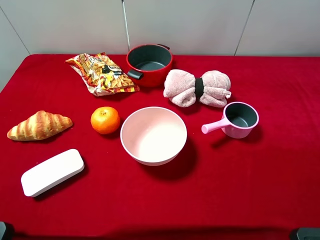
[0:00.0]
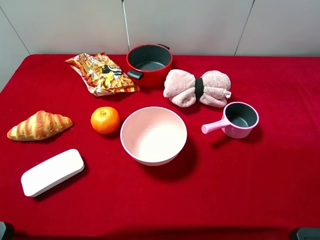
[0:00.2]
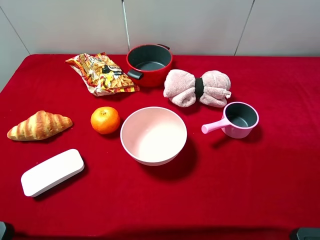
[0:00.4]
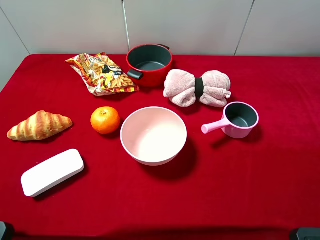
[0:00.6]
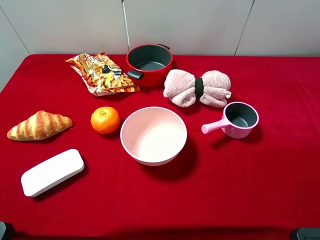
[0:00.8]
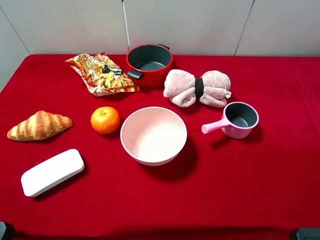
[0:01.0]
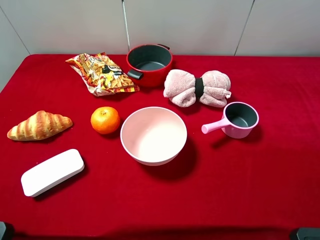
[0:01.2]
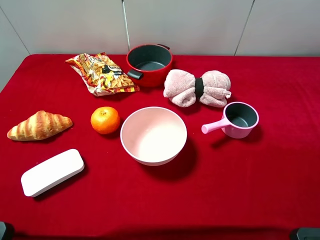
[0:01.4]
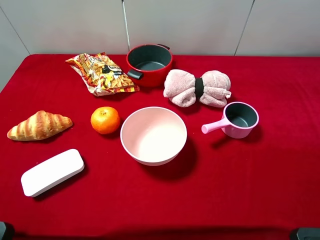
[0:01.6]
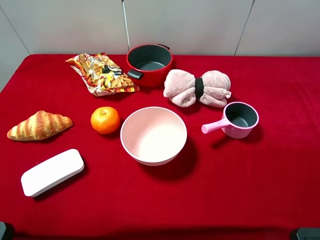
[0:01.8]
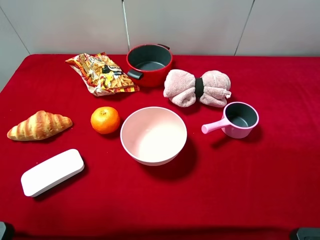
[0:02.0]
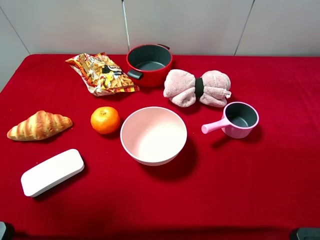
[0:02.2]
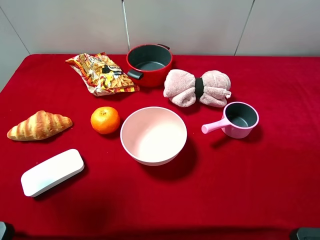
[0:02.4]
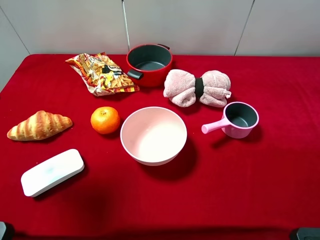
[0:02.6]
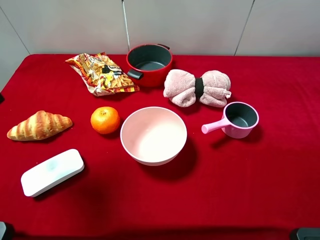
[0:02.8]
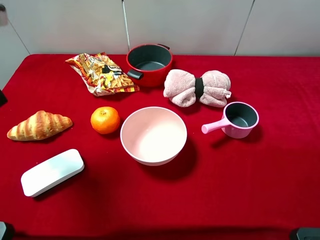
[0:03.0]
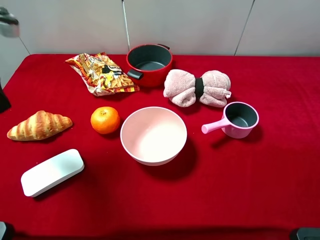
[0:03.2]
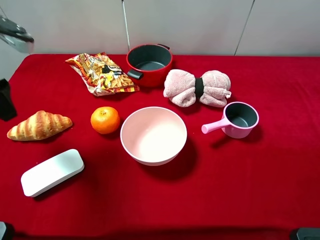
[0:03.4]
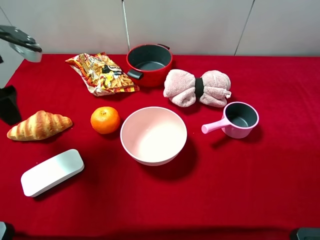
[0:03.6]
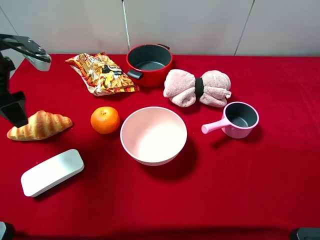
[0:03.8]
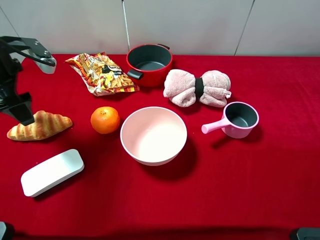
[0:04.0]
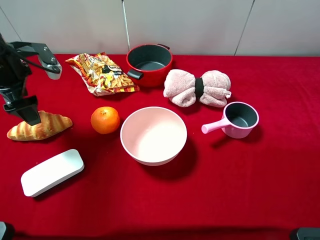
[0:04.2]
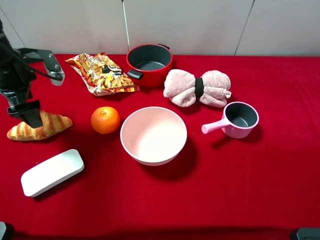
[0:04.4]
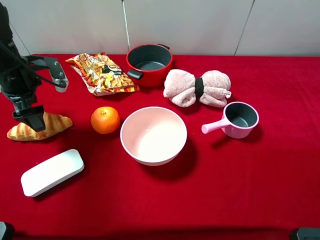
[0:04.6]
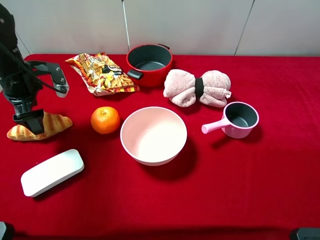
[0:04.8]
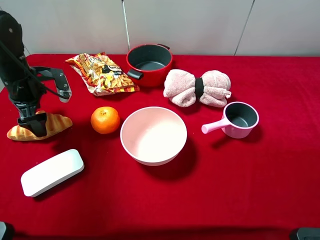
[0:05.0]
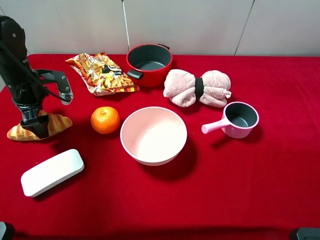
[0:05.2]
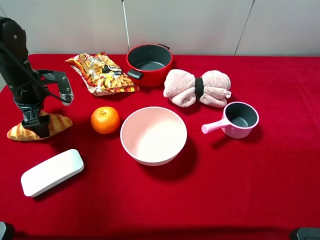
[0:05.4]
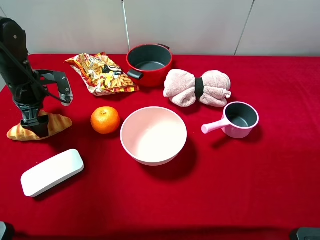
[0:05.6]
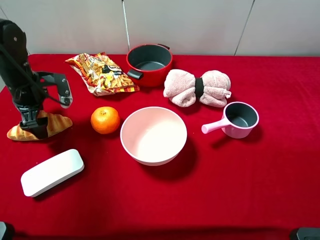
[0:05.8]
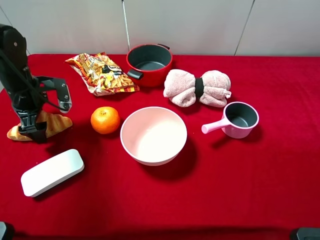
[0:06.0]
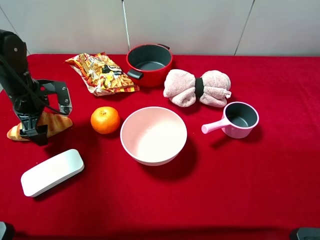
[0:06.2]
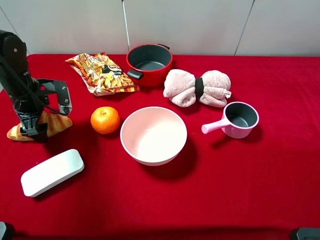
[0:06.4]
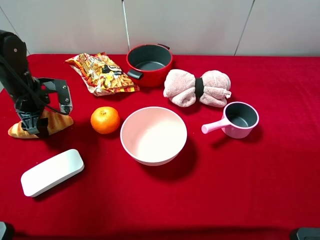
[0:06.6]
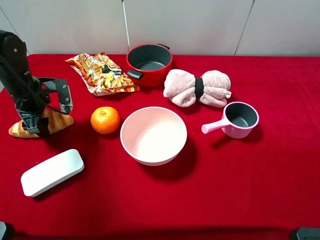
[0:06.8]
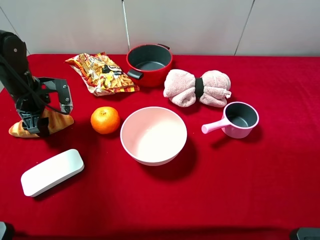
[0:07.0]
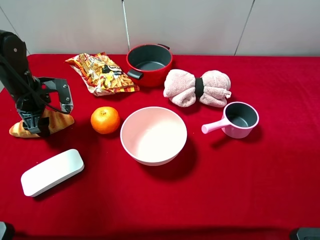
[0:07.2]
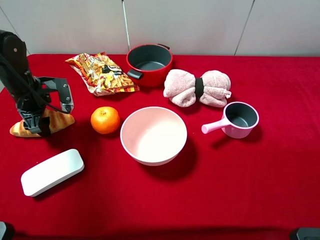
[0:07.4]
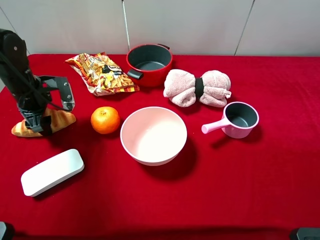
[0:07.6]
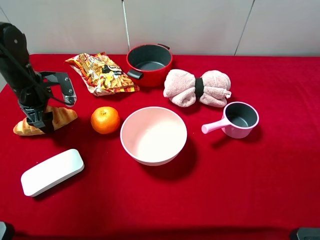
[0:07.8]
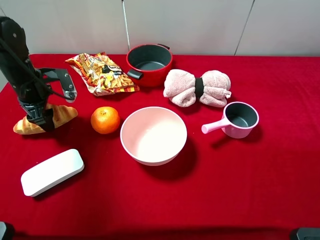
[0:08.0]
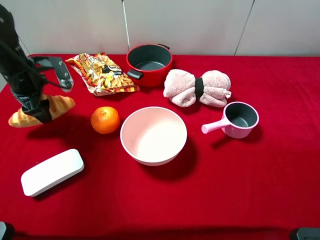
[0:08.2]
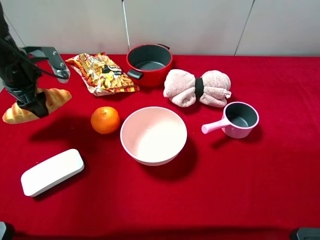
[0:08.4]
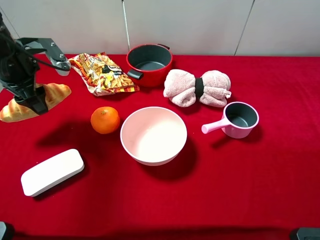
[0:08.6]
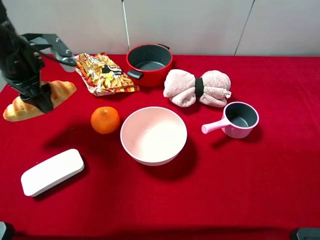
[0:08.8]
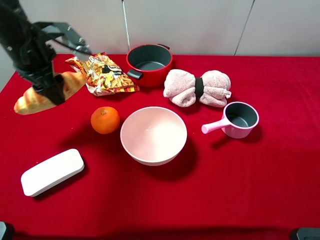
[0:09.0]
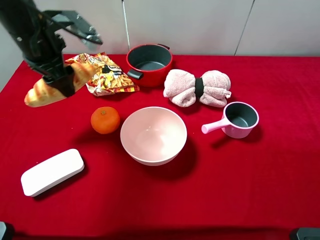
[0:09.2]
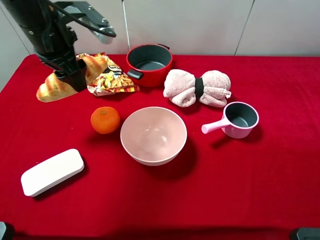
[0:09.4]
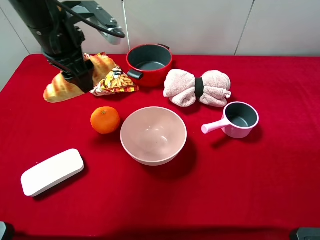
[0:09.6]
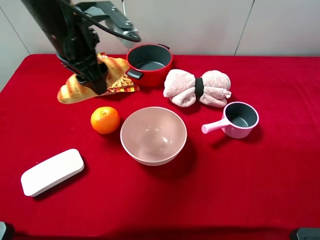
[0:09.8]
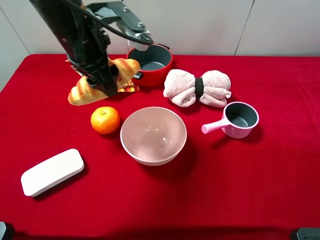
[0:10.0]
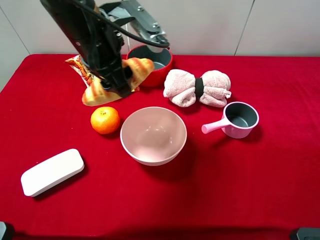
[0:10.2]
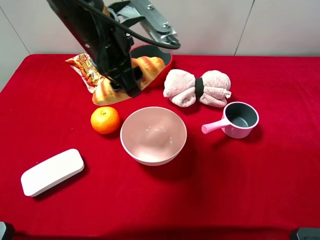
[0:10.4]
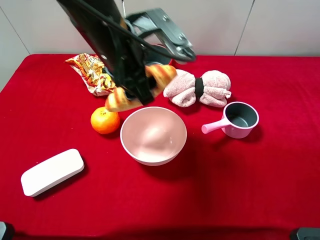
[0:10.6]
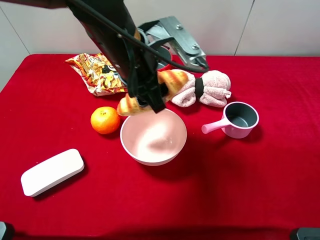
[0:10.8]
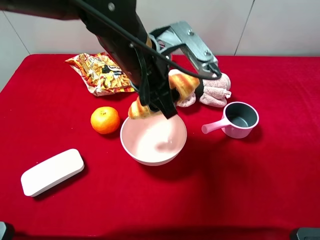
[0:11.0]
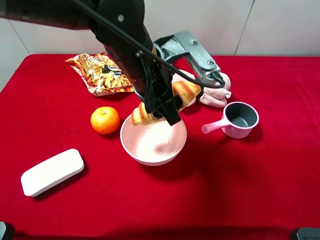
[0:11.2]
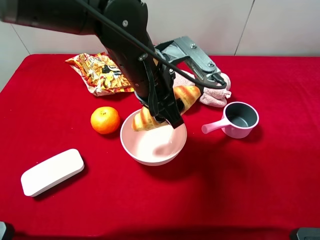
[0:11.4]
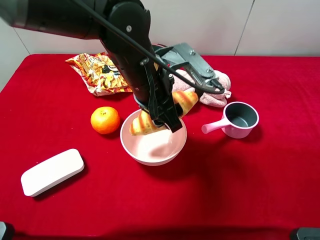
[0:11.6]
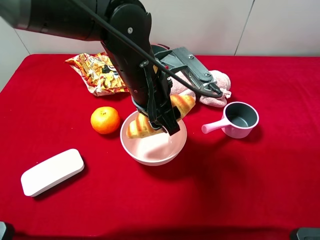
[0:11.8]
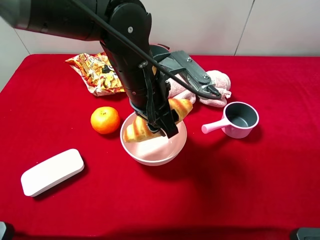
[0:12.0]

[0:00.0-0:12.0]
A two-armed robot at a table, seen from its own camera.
Task of the whole recording: pick up an item with a gripper and place it in a random container on the desktop.
1.6 to 3.0 s: The left gripper heads forward, covering approximately 20 cm.
3.0 to 4.4 s: The left gripper is displaced downward and forward by roughly 15 cm.
4.4 to 6.0 s: The left gripper shifts some 5 cm downward.
6.0 to 7.6 s: The left gripper closes its fingers.
7.6 to 9.0 s: The left gripper shifts roughly 15 cm upward and to the right.
9.0 to 10.4 s: The left gripper shifts about 15 cm to the right.
10.4 to 12.0 s: The left gripper shifts some 10 cm downward and to the right.

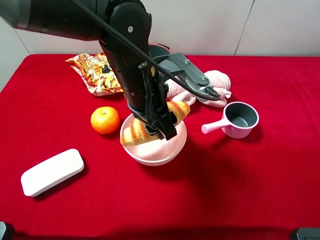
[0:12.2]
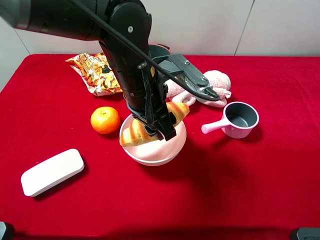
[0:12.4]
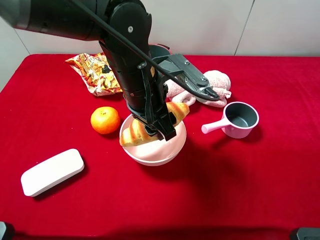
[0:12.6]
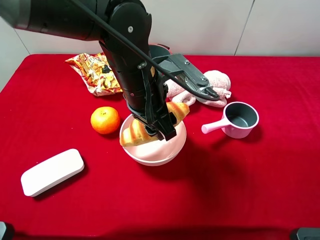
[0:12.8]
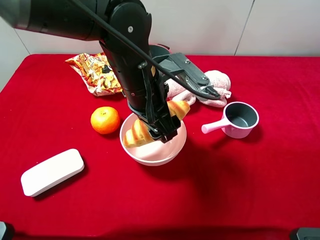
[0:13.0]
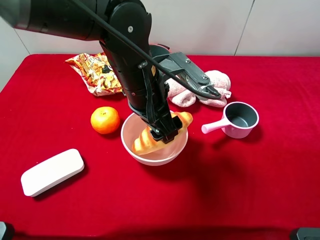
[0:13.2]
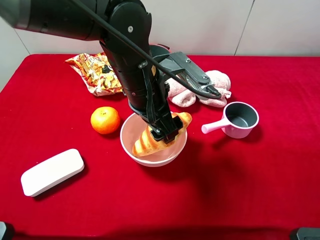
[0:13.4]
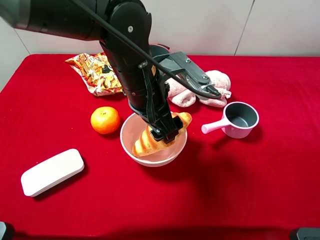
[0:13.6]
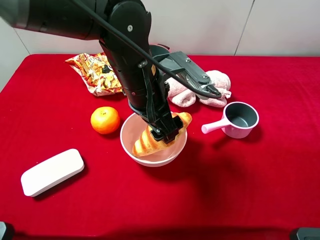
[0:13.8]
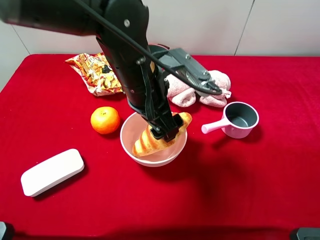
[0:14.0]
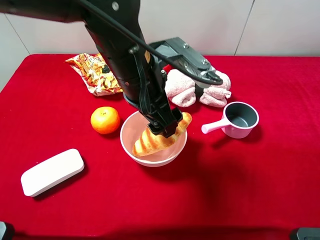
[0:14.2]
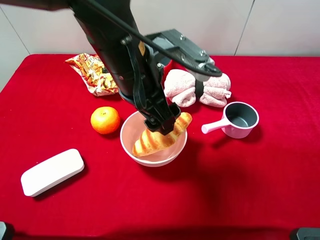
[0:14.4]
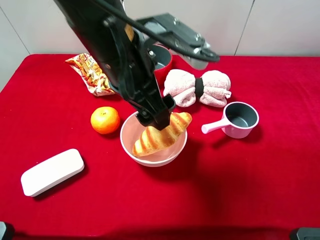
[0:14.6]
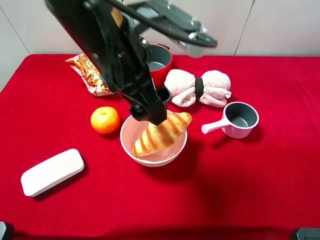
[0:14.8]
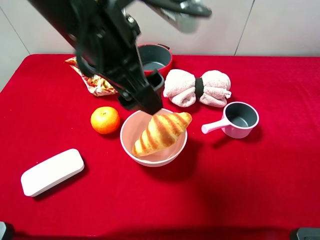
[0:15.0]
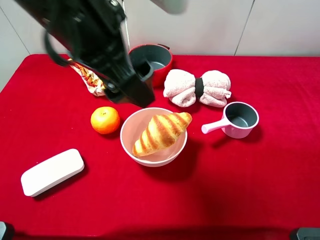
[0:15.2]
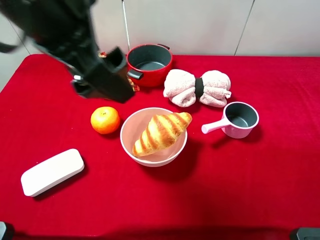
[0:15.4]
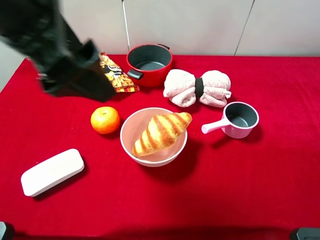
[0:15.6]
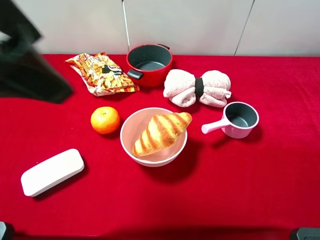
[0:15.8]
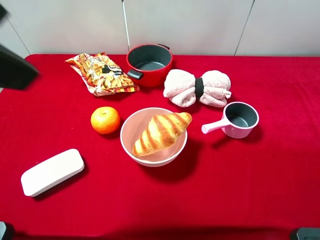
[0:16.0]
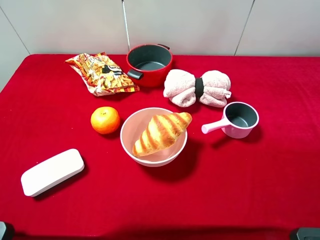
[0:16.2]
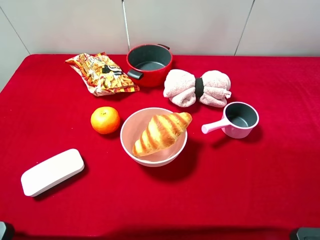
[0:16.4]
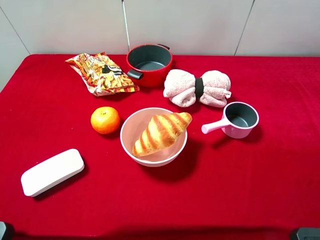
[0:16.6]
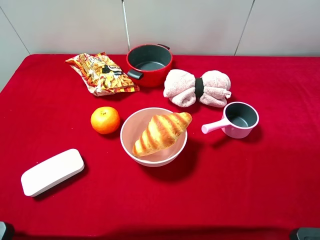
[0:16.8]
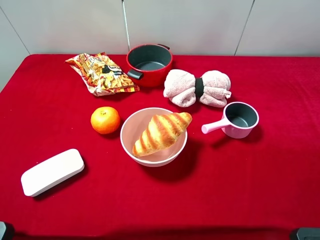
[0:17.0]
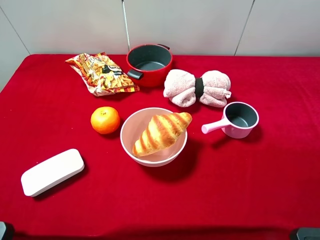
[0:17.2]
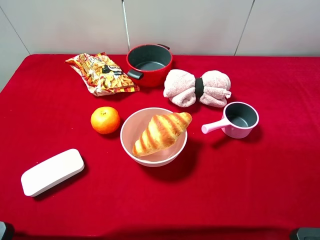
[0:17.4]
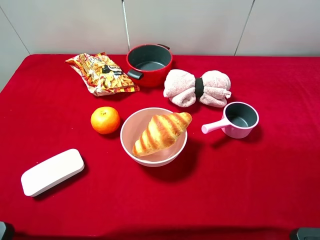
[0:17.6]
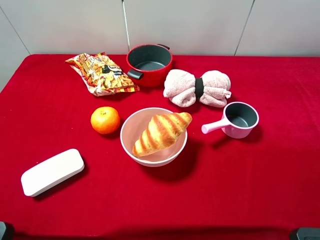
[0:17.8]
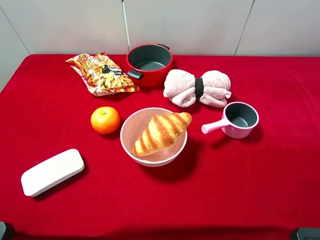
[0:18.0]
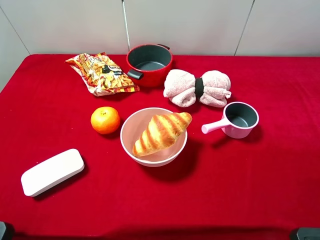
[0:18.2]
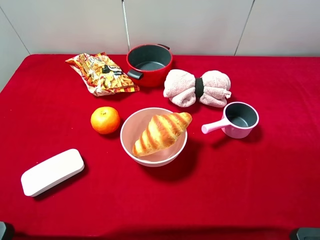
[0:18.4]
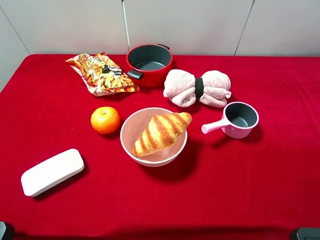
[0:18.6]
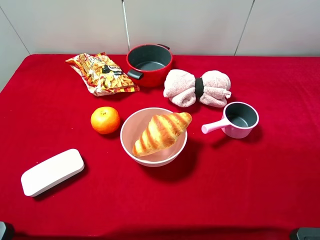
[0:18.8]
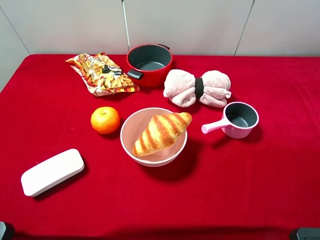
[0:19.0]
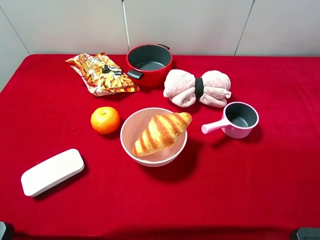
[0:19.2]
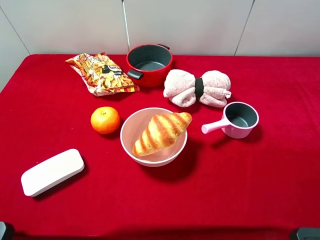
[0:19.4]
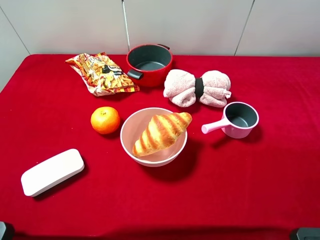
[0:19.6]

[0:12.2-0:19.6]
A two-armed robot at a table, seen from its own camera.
Task of the whole recording: pick up an item with a gripper and place it in a random container on the desktop.
12.2 to 13.6 s: The left gripper opens up.
13.6 to 15.2 s: The left gripper shifts some 15 cm upward and to the left.
15.2 to 16.6 s: The left gripper heads to the left, backward and upward, covering approximately 25 cm.

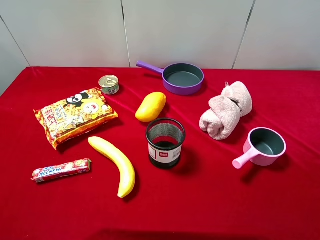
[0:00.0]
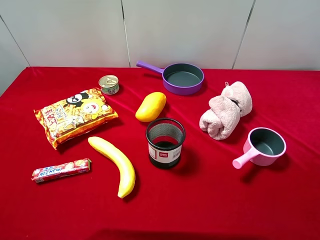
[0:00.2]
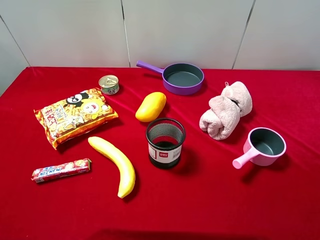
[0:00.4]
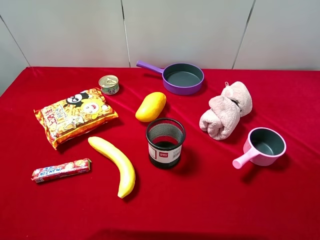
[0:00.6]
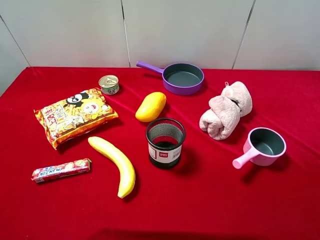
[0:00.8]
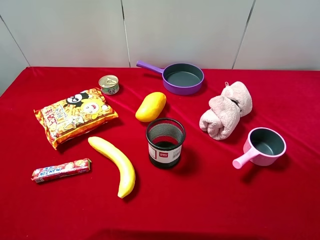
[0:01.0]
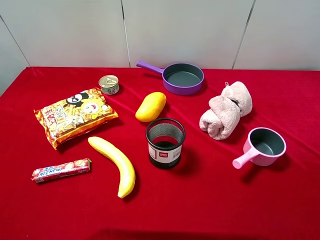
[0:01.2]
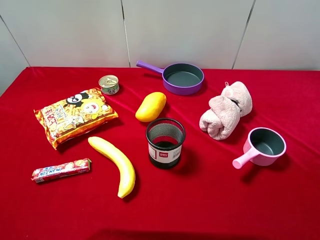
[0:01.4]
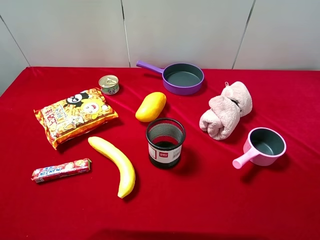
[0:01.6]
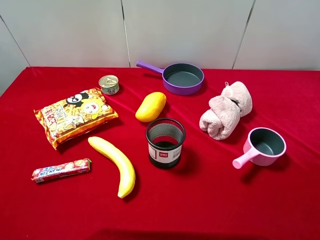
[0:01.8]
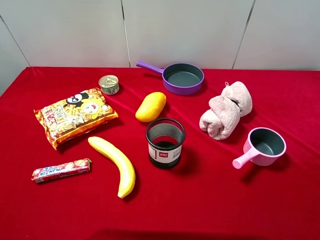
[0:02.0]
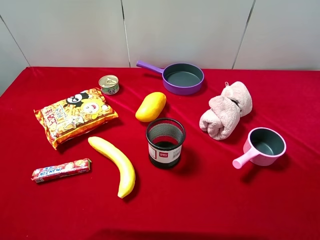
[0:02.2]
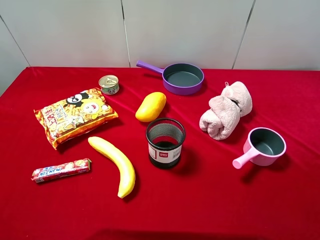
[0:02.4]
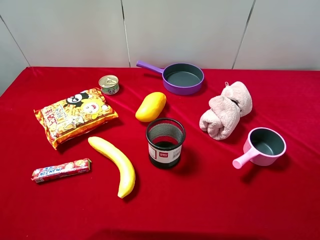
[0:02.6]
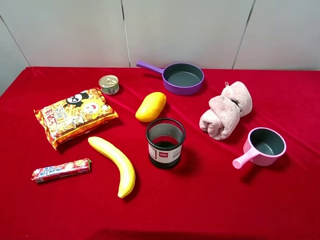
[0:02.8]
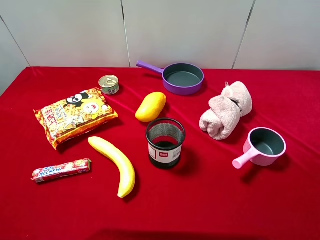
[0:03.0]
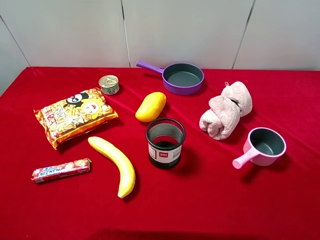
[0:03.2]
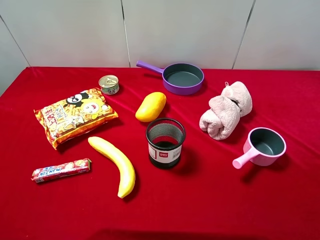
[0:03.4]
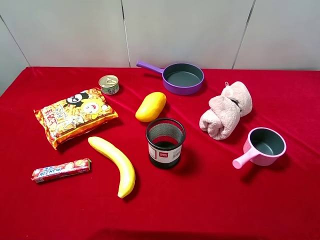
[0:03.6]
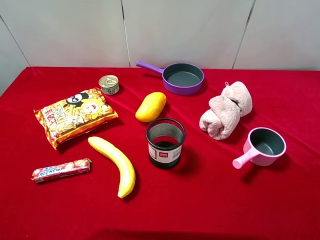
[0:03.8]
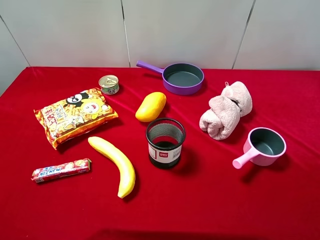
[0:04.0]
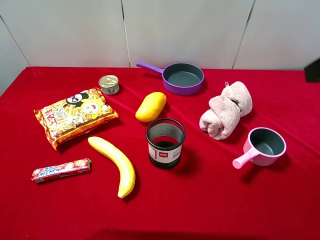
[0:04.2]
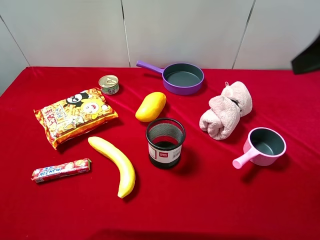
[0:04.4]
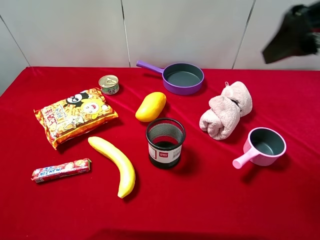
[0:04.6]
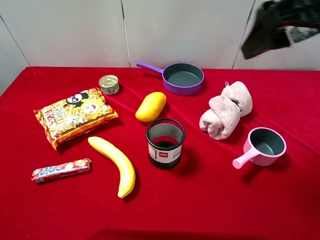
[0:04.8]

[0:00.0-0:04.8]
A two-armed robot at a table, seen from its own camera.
Task of the whole recording: pick up an item with a gripper and place it in a random container on the desktop.
0.0 to 3.2 s: Neither gripper changes place.
3.2 to 4.8 s: The right gripper moves forward and to the left, roughly 25 cm.
